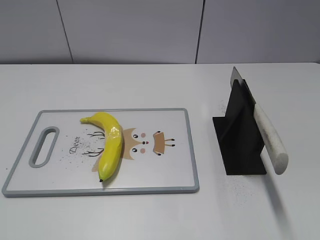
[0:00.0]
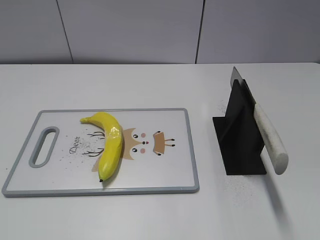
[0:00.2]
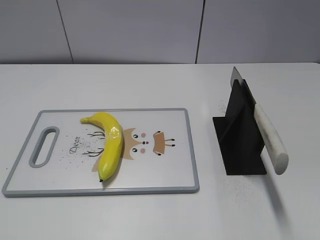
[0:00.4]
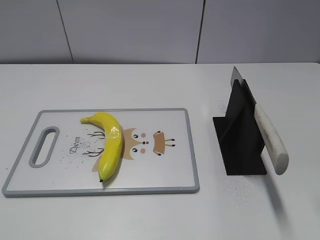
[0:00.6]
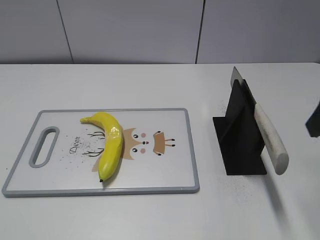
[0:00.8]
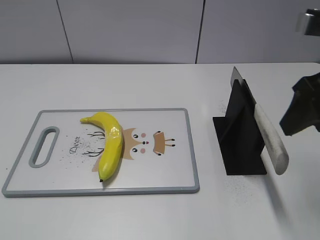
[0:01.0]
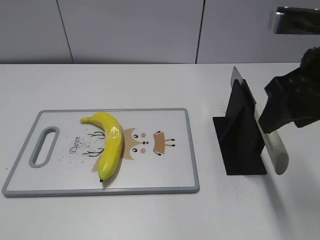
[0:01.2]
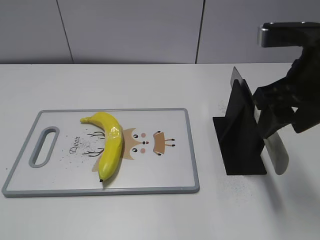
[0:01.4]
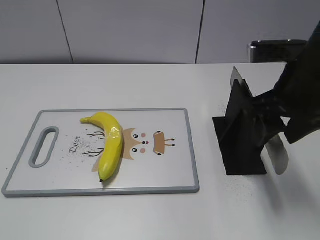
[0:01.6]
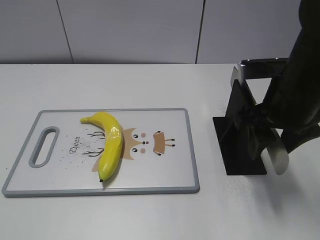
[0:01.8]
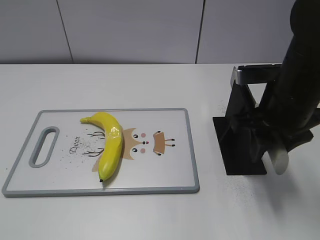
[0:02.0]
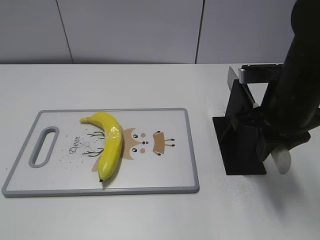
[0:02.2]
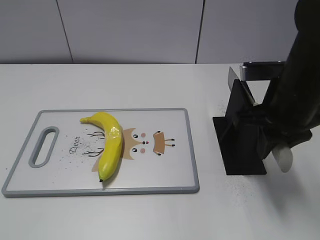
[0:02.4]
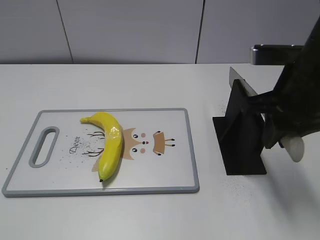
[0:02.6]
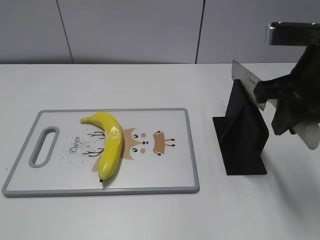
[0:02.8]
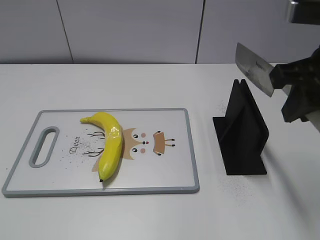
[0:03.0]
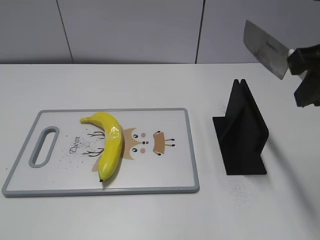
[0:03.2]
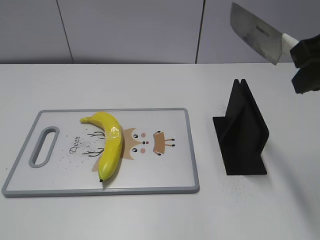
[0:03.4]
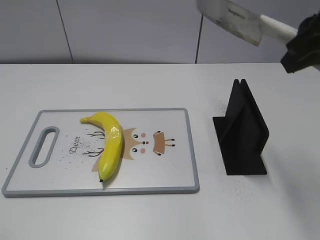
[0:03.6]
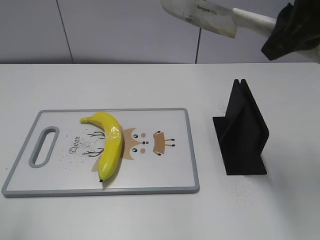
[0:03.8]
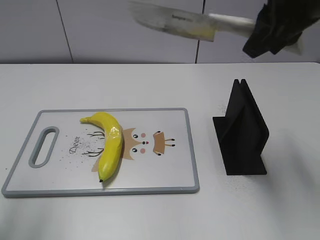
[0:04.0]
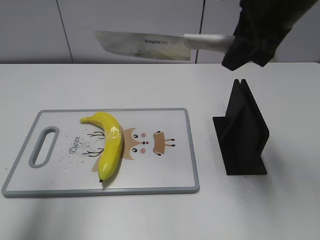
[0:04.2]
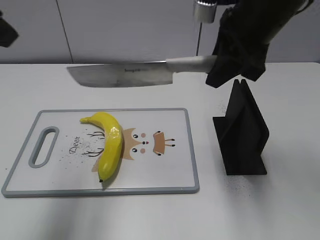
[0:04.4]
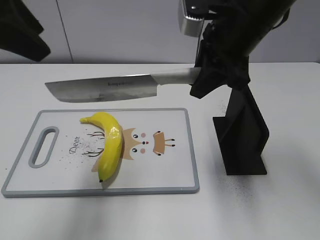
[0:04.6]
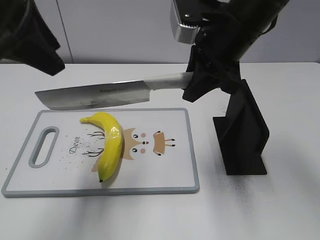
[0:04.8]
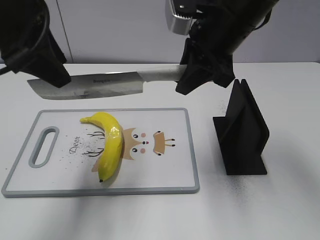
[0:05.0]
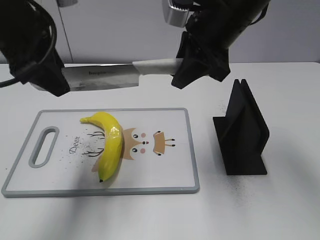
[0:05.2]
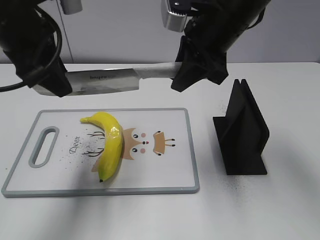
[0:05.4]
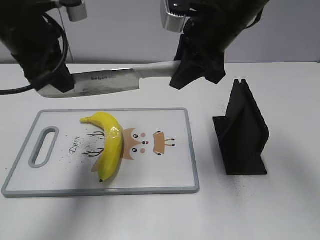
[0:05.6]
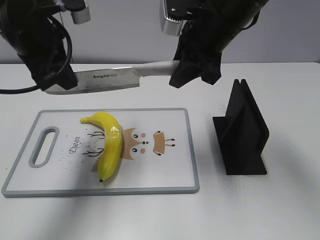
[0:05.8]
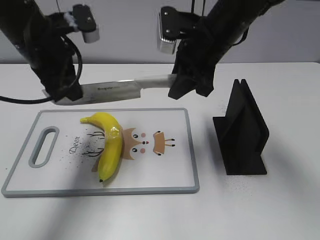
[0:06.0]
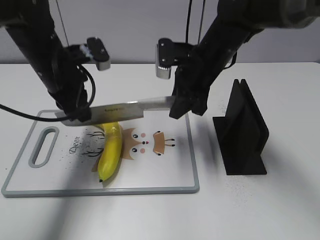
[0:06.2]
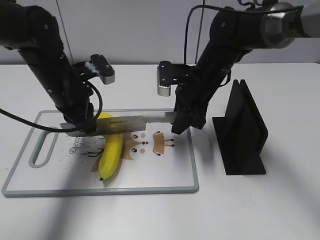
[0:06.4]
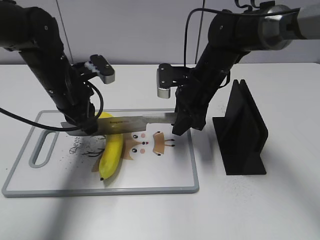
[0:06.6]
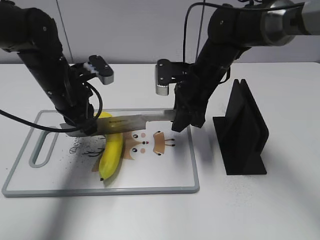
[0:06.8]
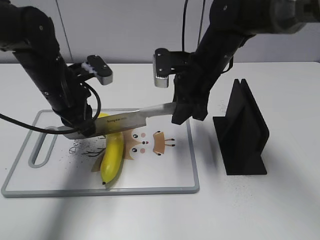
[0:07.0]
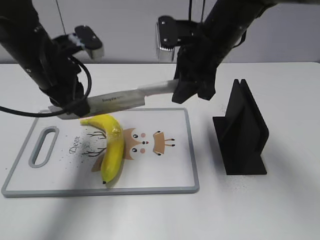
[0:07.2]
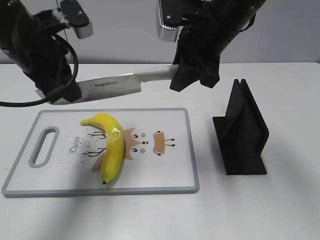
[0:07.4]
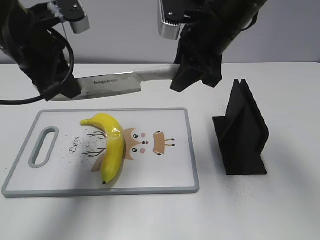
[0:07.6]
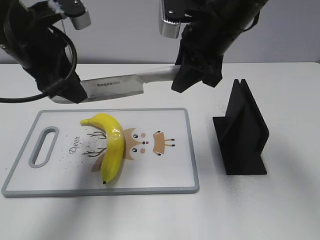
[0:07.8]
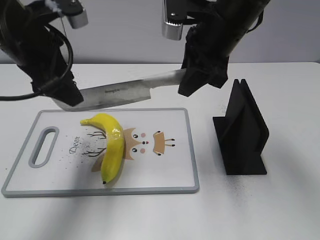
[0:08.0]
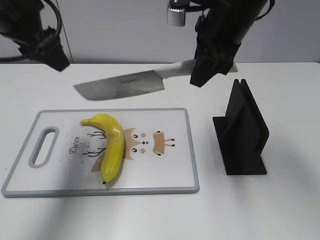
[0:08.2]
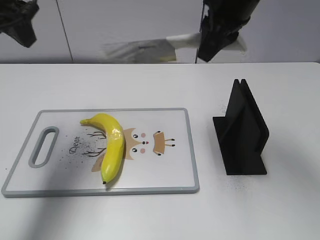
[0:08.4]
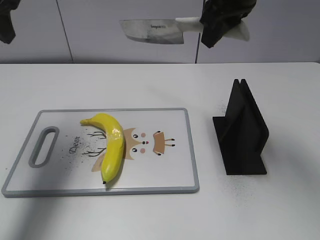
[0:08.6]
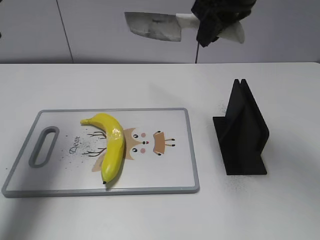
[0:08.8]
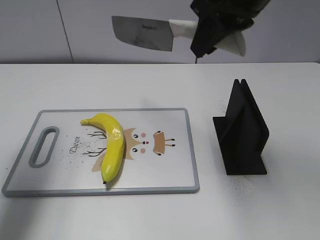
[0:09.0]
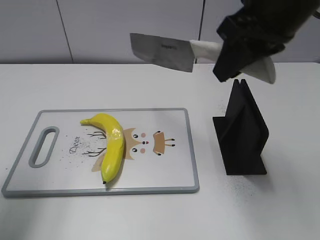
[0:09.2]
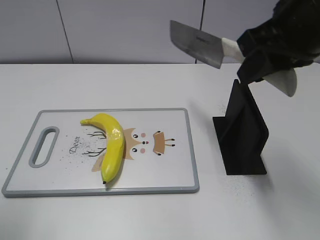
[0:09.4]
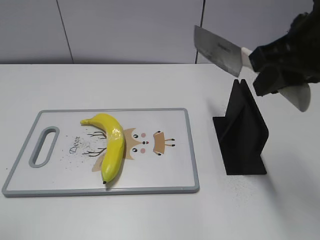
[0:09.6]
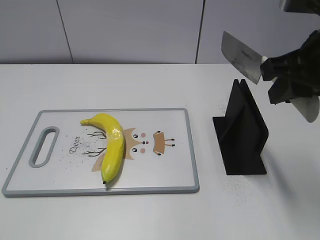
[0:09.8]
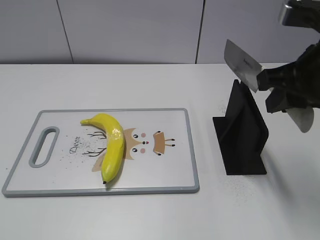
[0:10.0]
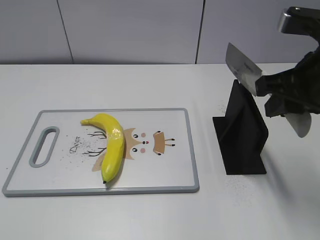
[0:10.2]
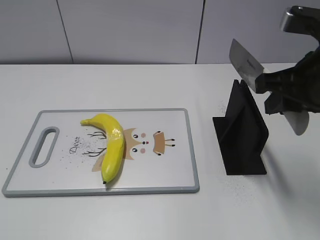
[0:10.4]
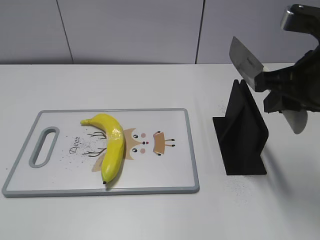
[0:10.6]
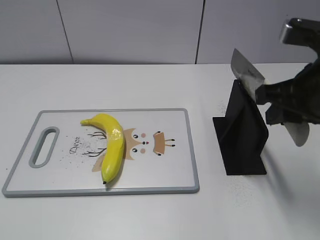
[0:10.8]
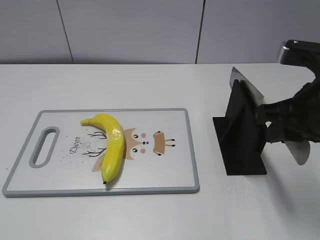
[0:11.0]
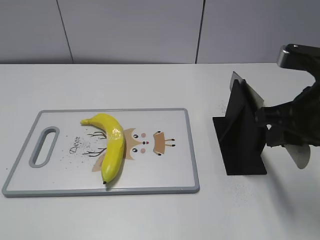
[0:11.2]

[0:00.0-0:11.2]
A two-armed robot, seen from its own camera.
Task of the whole recording: cut plastic banana.
Step, 0:00.0 to 0:03.4: Grab the knife handle with your right hand.
Step, 0:03.6 to 0:07.4: Lift the knife with your right hand.
Step, 0:07.6 to 0:08.4: Cut the banana with your right hand.
Step, 0:08.6 to 0:10.0: Lift the knife with your right hand.
0:00.0 to 0:01.6: The right gripper heads forward, to the left and downward, covering roughly 20 cm.
0:01.6 to 0:03.2: The right gripper moves upward, roughly 10 cm, and closes up.
0:03.2 to 0:04.8: The left gripper heads forward and to the right, covering about 30 cm. The right gripper travels forward, to the left and downward by some 15 cm.
0:04.8 to 0:06.4: Both grippers move downward and forward, about 20 cm. The left gripper closes up.
0:06.4 to 0:08.0: The grippers both shift upward by some 15 cm. The left gripper opens.
0:08.0 to 0:09.6: The left gripper travels backward and to the left by roughly 25 cm. The right gripper moves backward and to the right, some 15 cm.
0:09.6 to 0:11.2: The right gripper heads downward, covering roughly 10 cm. The left gripper moves backward, roughly 10 cm.

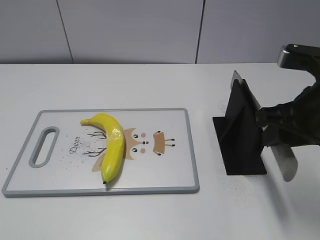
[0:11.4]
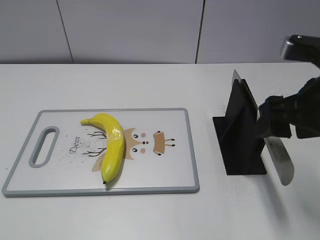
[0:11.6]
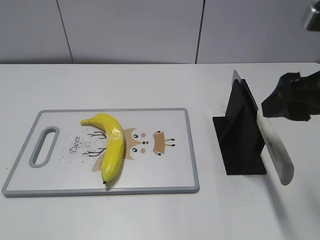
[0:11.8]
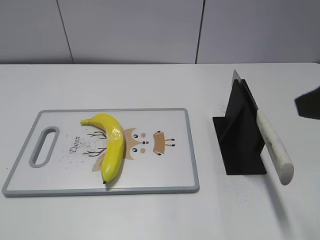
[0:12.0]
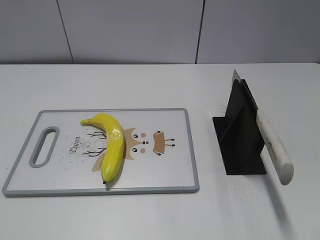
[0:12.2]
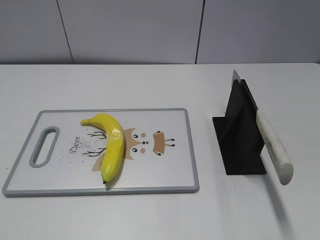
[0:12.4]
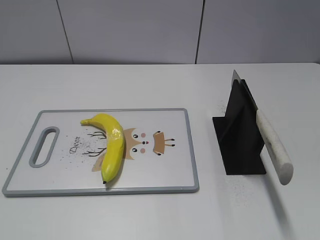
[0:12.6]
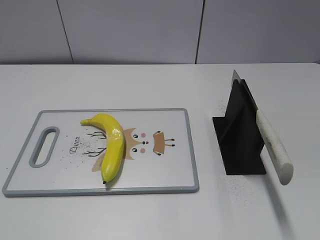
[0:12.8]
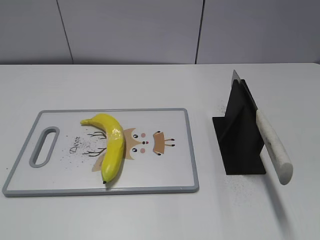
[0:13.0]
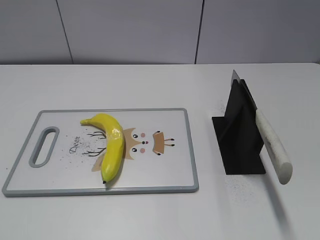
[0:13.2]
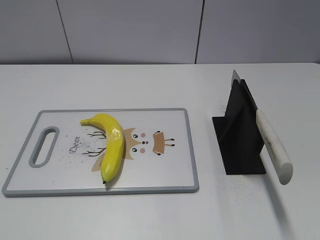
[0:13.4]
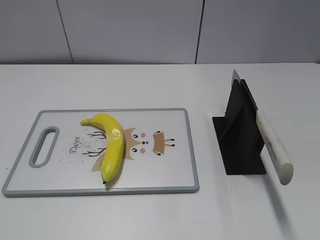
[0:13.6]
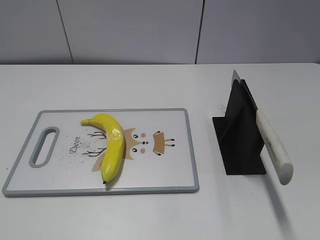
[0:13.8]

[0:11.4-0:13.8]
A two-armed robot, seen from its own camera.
Task of the whole recording: cut plastic banana.
Step, 0:11.4 to 0:13.8: Place the knife on the storage rack with your right hand.
0:11.4 to 0:12.6: The right gripper is displaced backward and to the right by some 20 cm, and opens its fingers.
